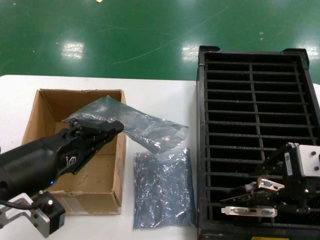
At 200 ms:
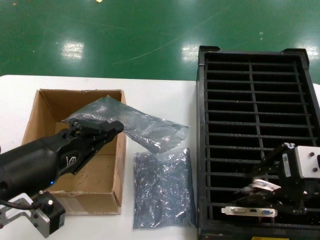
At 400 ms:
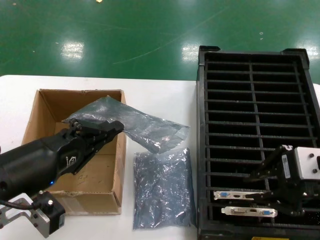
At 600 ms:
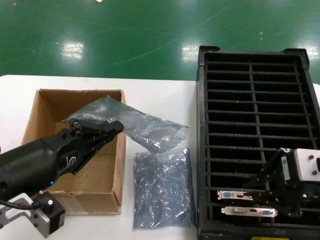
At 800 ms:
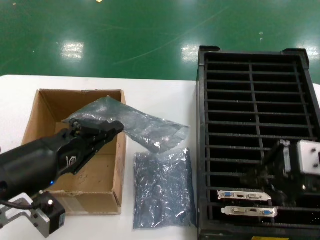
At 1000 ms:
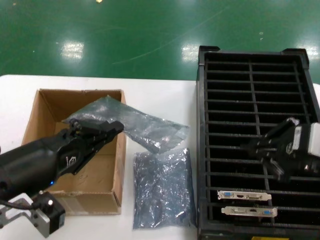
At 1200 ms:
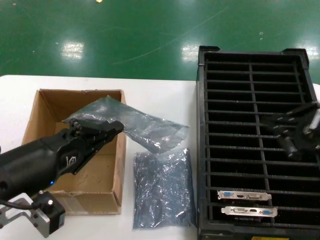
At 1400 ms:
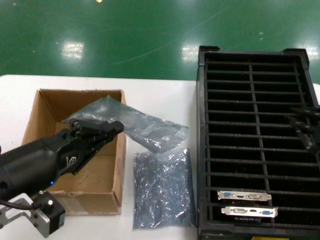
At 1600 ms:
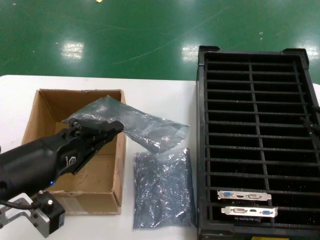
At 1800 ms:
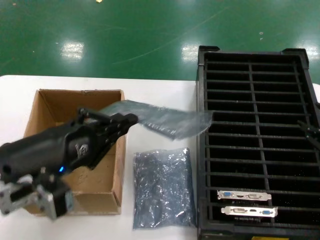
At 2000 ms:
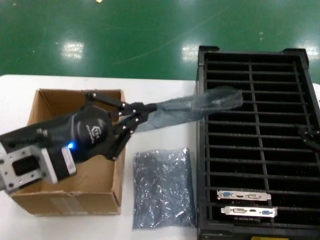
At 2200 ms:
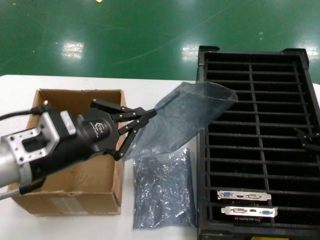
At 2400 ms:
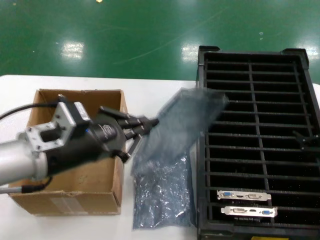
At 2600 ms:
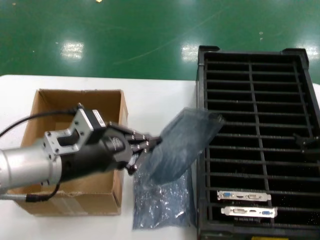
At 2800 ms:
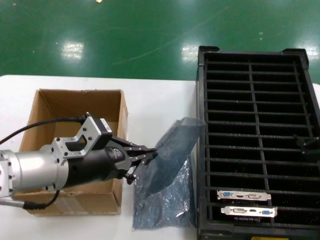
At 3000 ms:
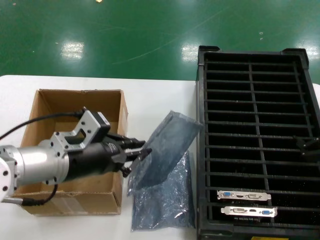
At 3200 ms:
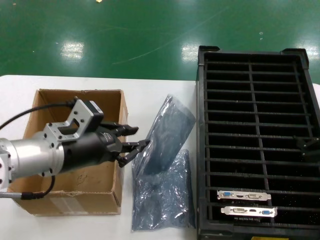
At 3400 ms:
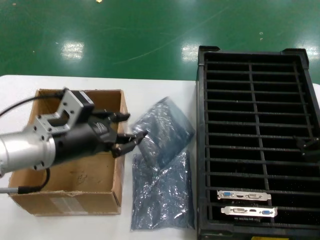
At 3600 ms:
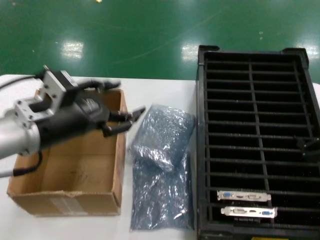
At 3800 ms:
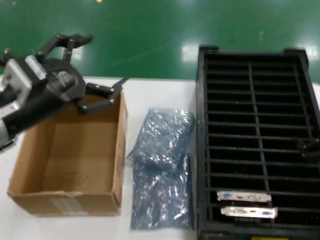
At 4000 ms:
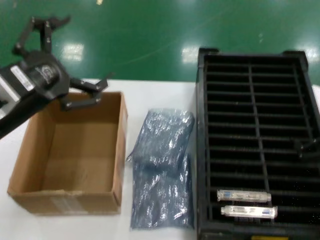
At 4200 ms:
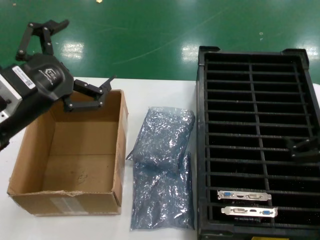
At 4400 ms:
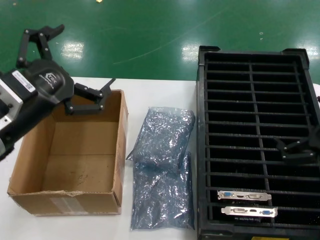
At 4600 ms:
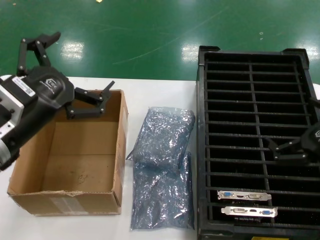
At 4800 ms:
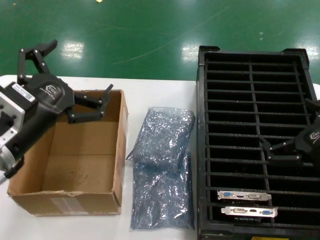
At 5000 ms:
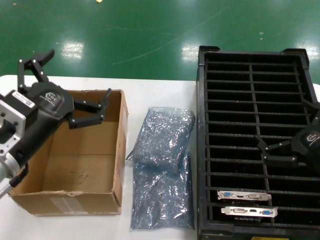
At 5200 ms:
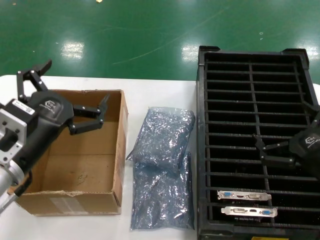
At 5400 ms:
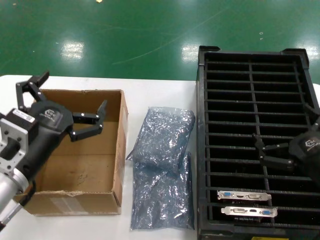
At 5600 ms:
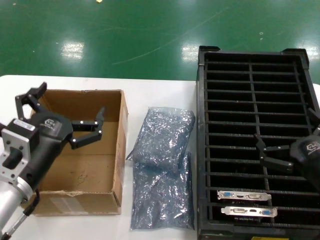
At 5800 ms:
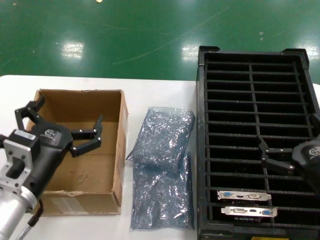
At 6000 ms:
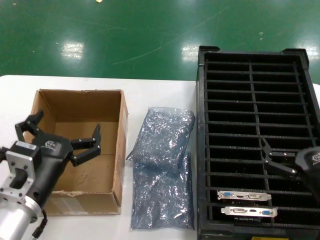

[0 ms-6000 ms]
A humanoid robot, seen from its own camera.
Task of the whole recording: take out graphics card from box remove packaging put into black container.
Step, 1000 ms to 5600 ms: Place the down the bag.
0 ms to 1600 ms: The right hand heads to the right and downward, covering about 10 cm.
1600 ms to 3000 ms: The left hand shifts some 10 cm forward.
3000 ms to 4400 ms: The left hand moves backward and upward, roughly 10 cm.
4400 ms to 6000 ms: The hands both shift downward by approximately 15 cm.
